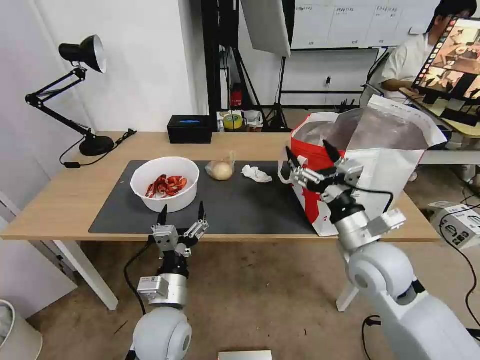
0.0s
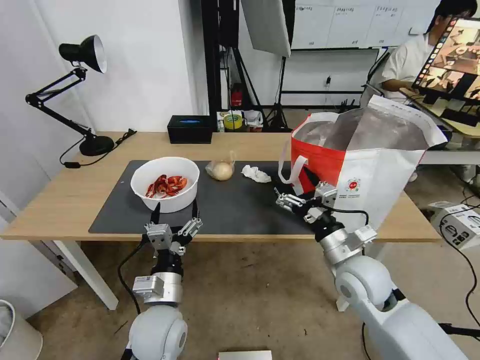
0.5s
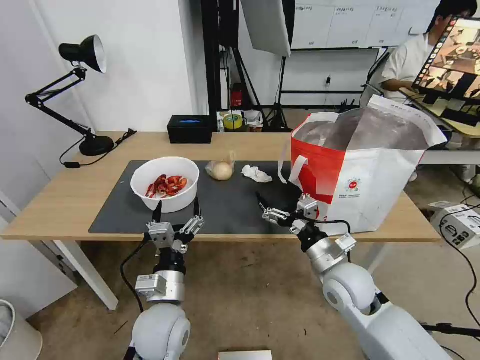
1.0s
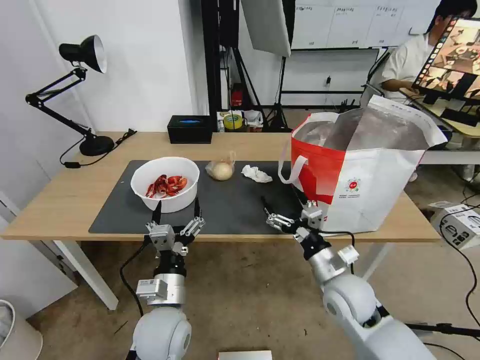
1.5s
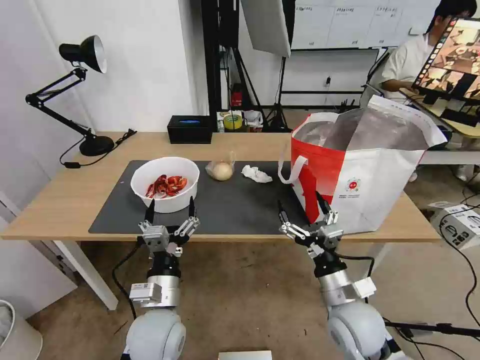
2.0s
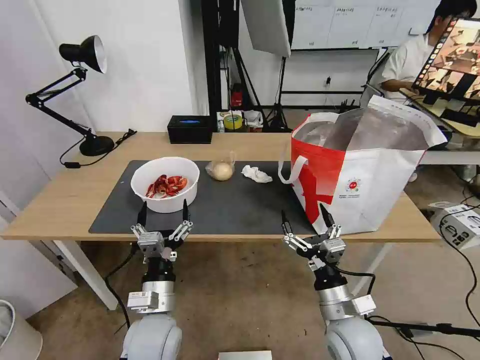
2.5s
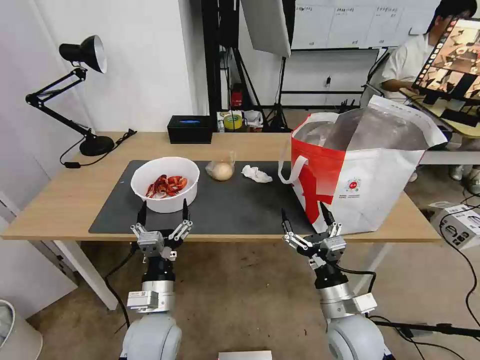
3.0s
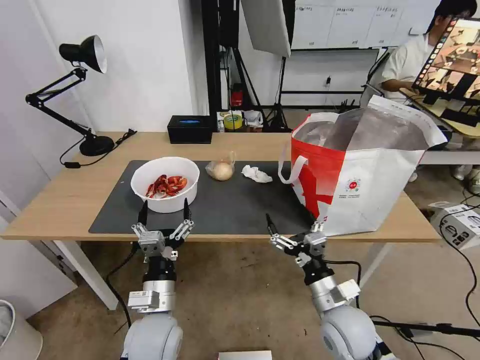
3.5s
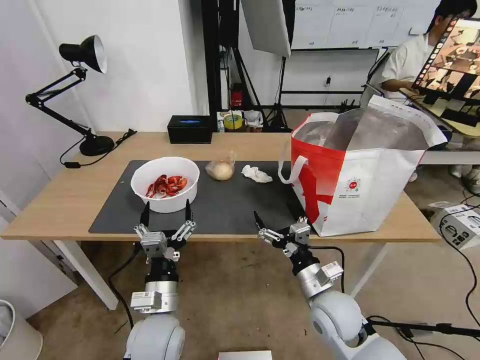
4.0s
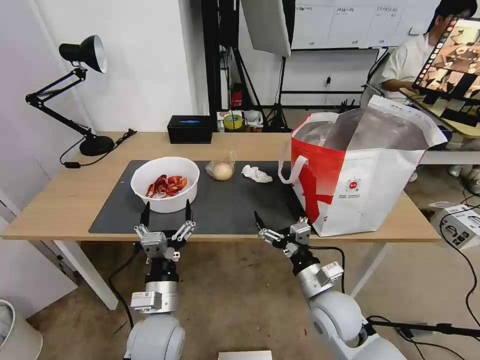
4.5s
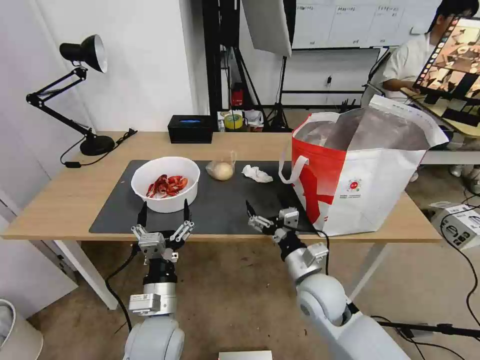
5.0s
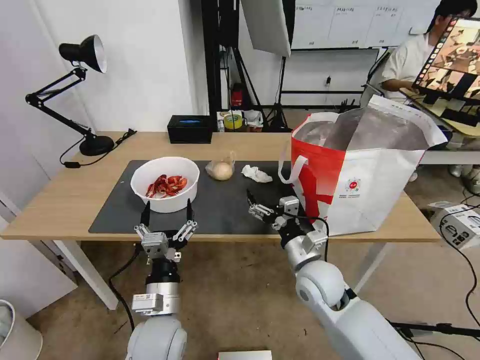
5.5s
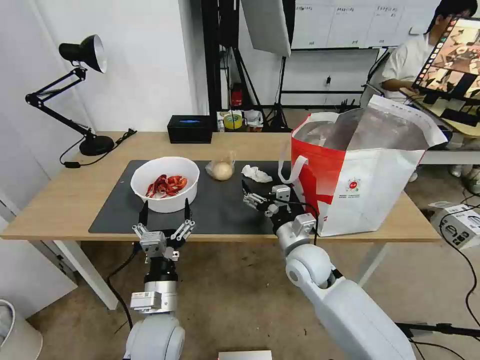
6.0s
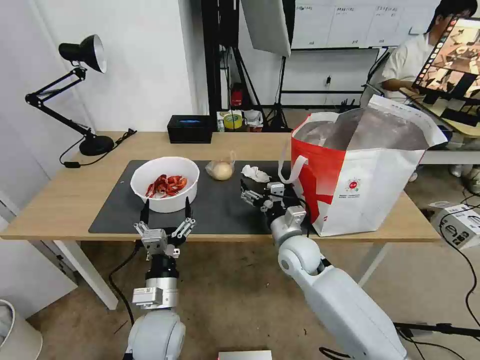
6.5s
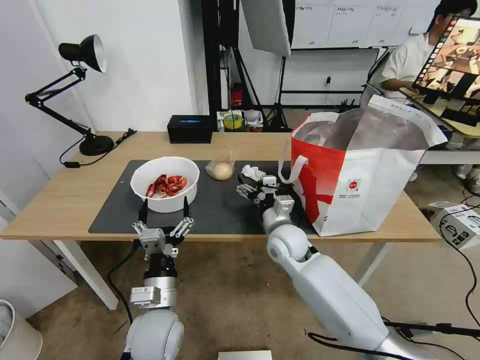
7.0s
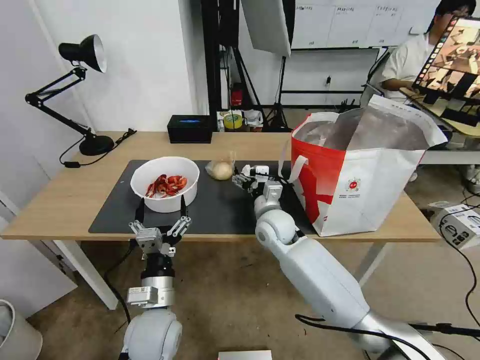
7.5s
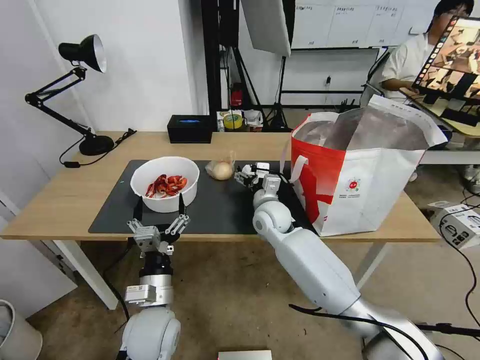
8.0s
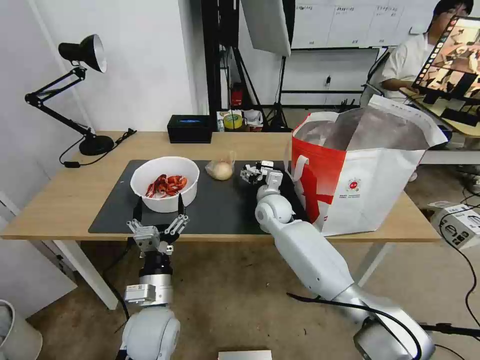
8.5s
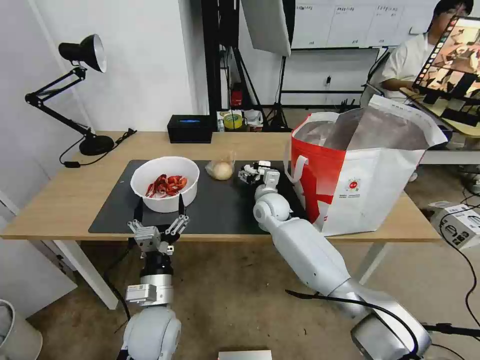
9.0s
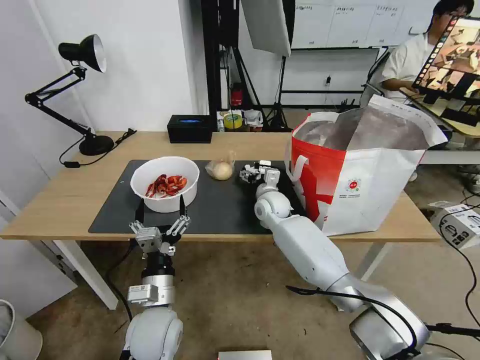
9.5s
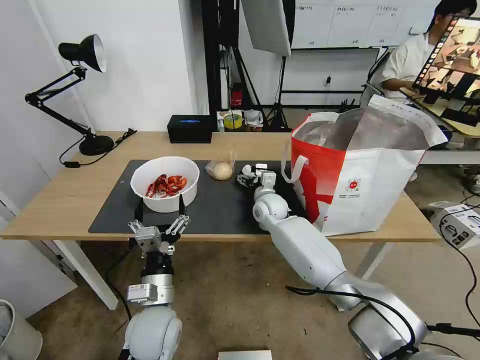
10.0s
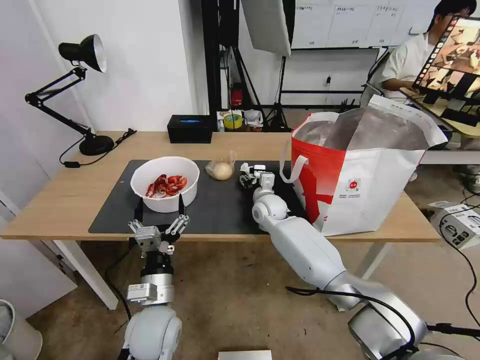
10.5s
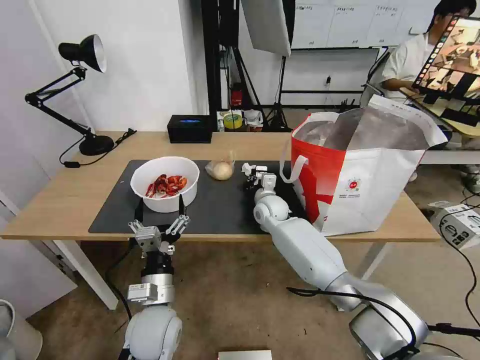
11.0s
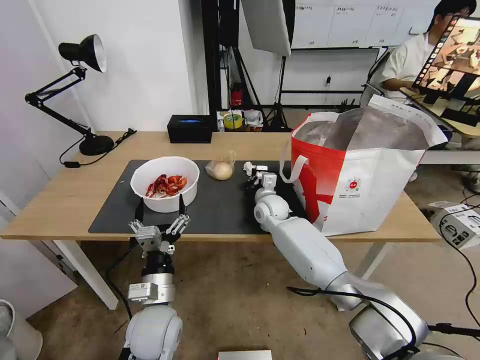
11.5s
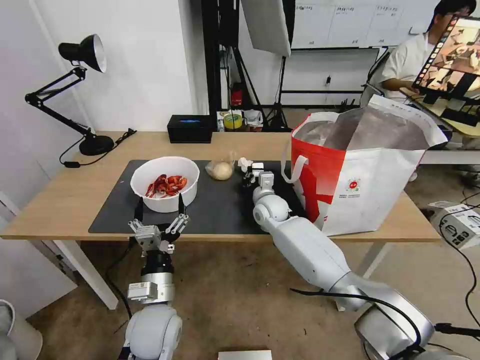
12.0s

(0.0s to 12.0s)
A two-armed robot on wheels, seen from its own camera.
Task of the whole recording: Pick up the trash from the table and place it into the takeout bag.
0.0s - 2.0s: The right gripper heads downward and backward, covering approximately 15 cm.
2.0s - 4.0s: The grippers make only small movements.
4.0s - 6.0s: The right gripper shifts approximately 10 cm forward.
6.0s - 8.0s: The right gripper moves forward and to the left, roughly 15 cm.
8.0s - 10.0s: The right gripper heads forward, covering approximately 5 cm.
10.0s - 12.0s: The right gripper closes.

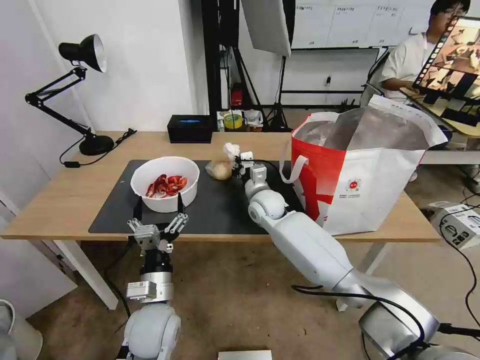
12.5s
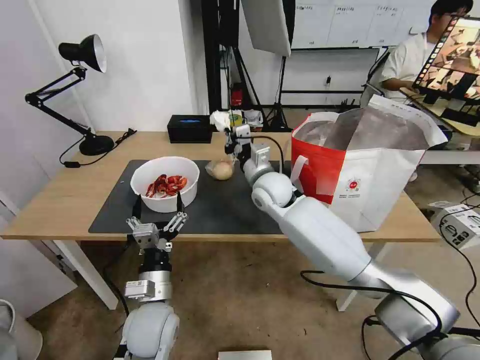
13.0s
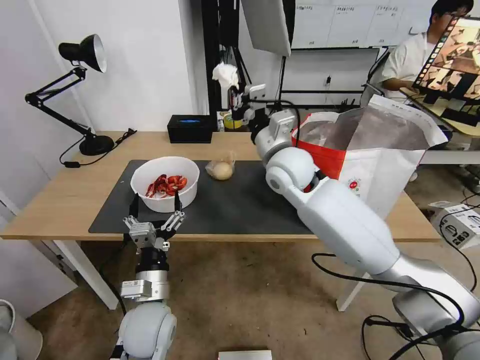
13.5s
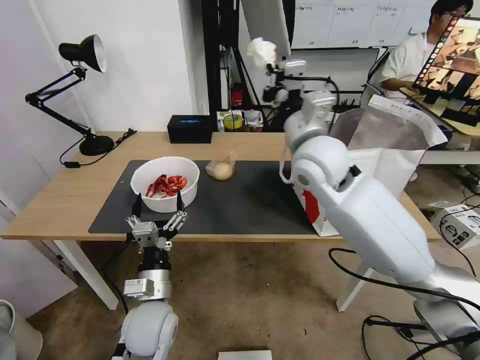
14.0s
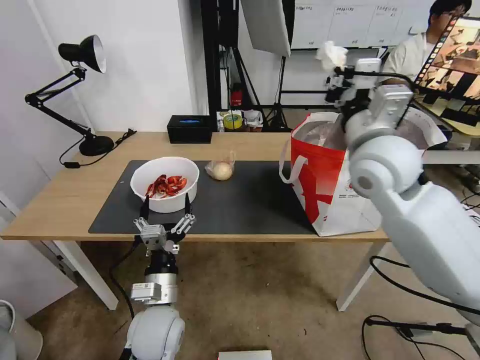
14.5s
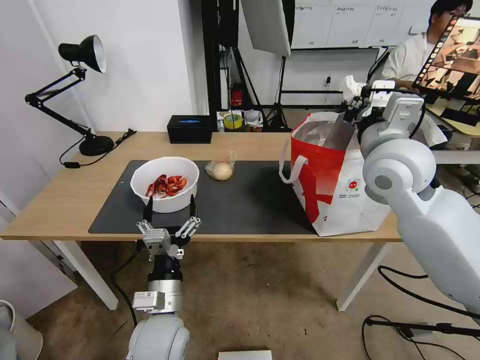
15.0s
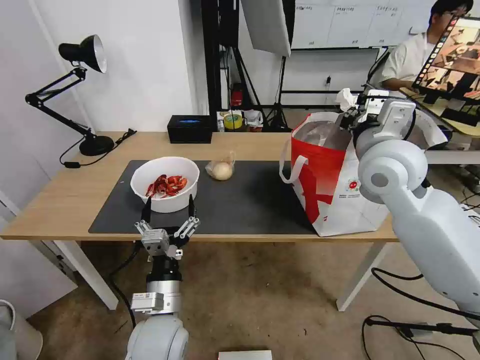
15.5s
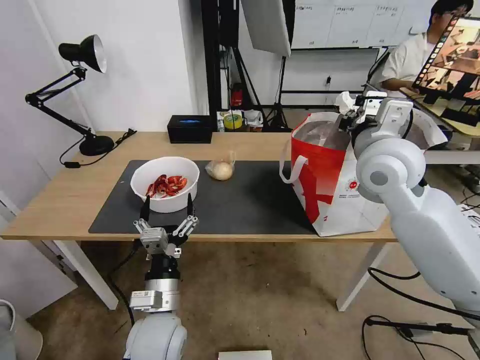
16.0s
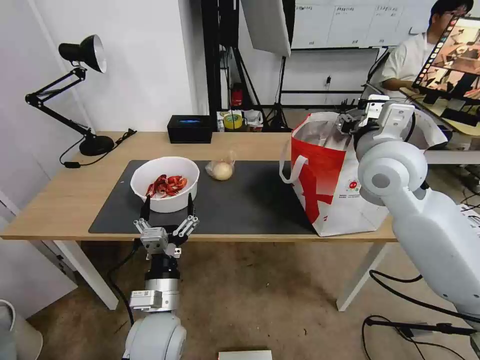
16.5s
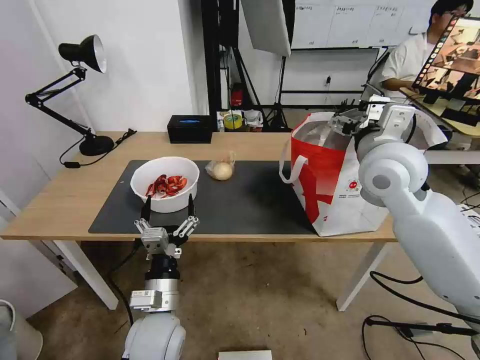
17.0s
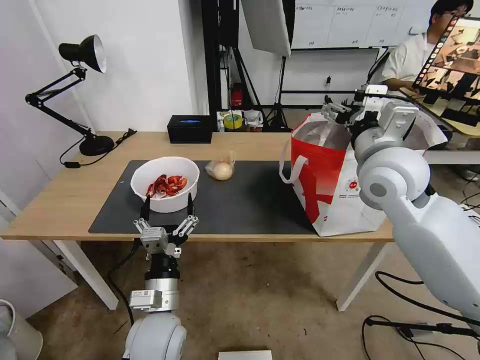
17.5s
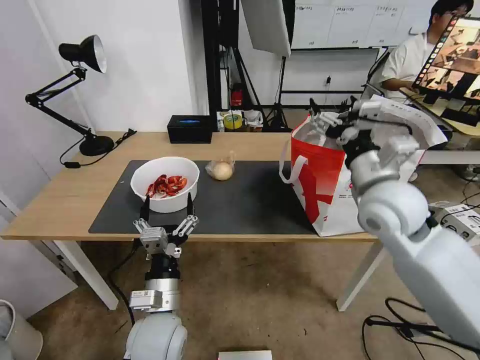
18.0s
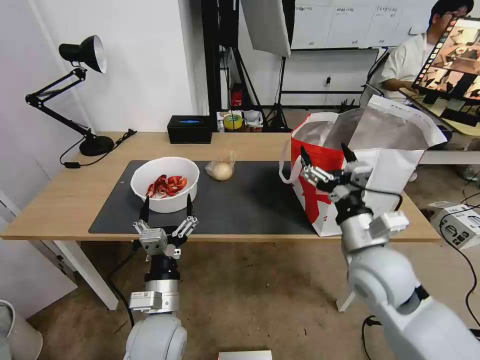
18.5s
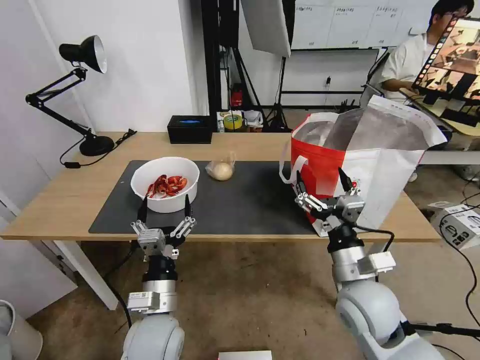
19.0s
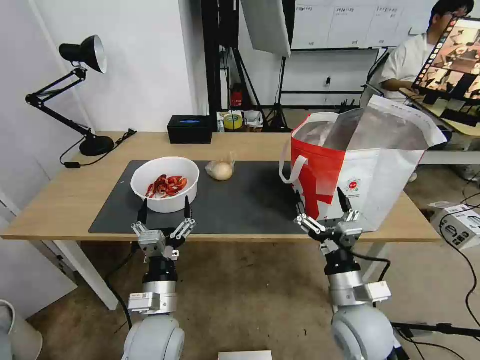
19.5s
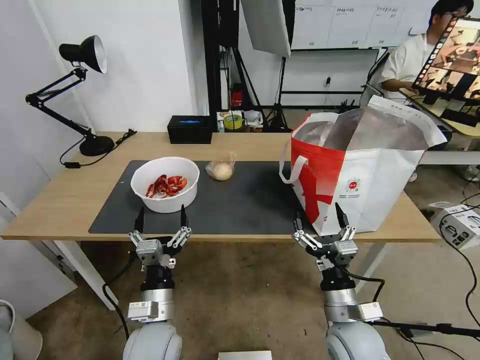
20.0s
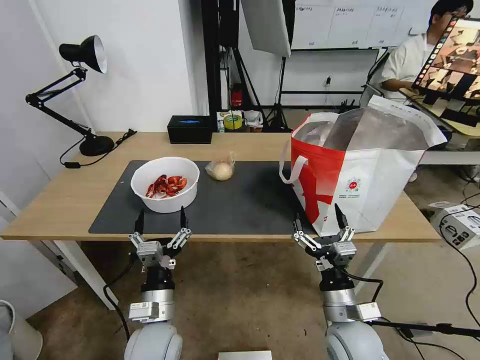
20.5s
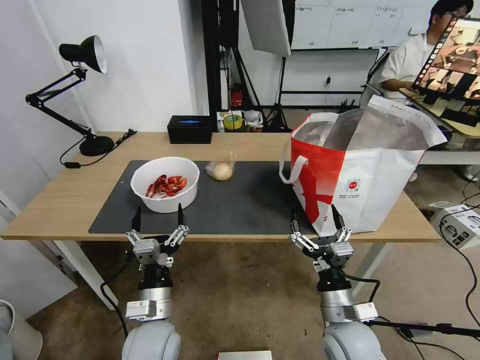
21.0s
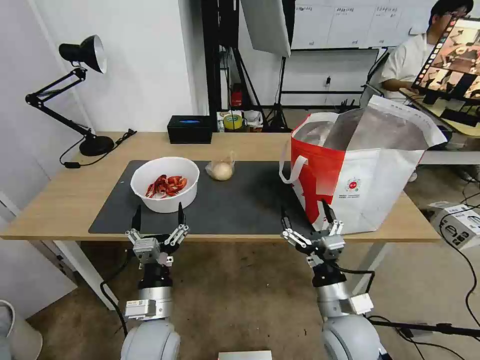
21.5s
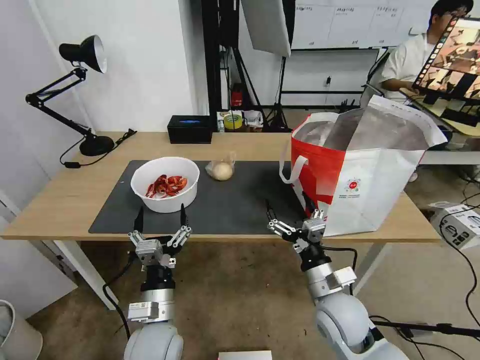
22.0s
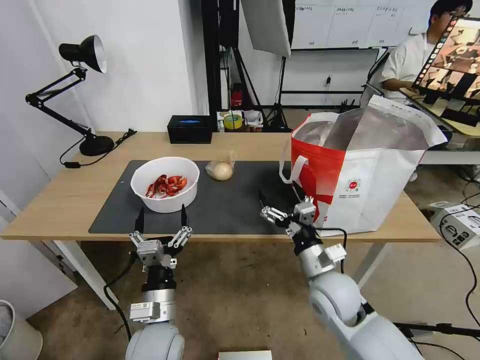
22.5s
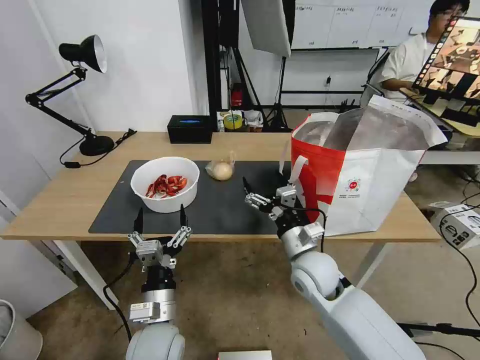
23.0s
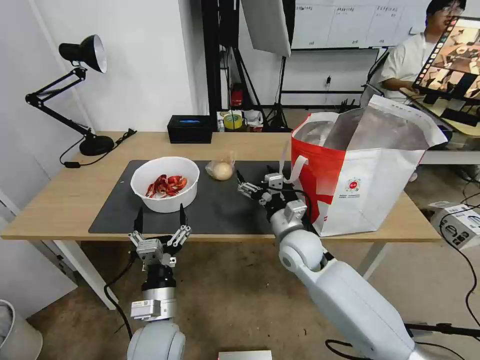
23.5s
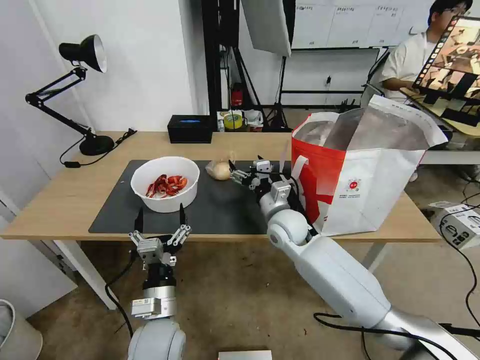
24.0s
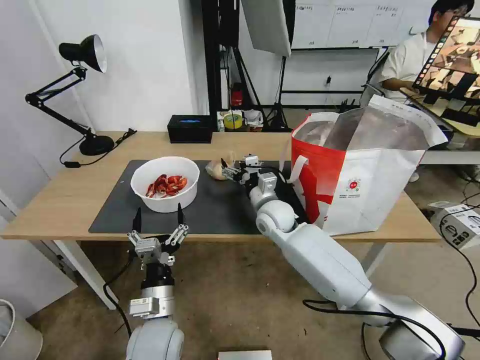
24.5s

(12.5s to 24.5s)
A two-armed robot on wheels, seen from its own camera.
Task of the whole recording: Pick up the trash from the table and place it into the takeout bag.
12.5s - 14.5s: The right gripper goes about 30 cm upward, to the right and backward.
14.5s - 16.5s: The right gripper opens.
16.5s - 18.5s: The right gripper shifts about 20 cm downward and backward, and opens.
18.5s - 20.5s: The right gripper goes some 15 cm downward and backward.
20.5s - 22.5s: The right gripper goes about 10 cm forward.
22.5s - 24.5s: The right gripper travels forward and to the left by about 20 cm.

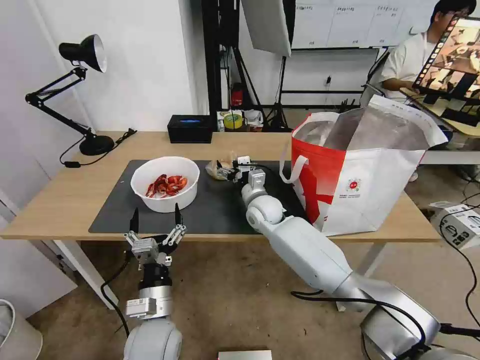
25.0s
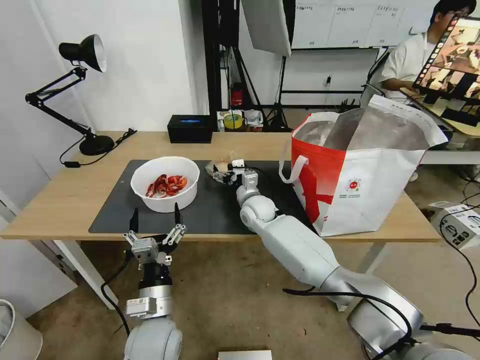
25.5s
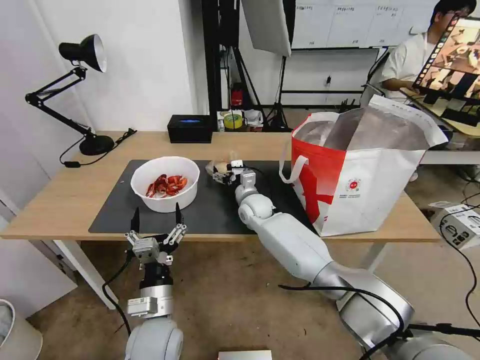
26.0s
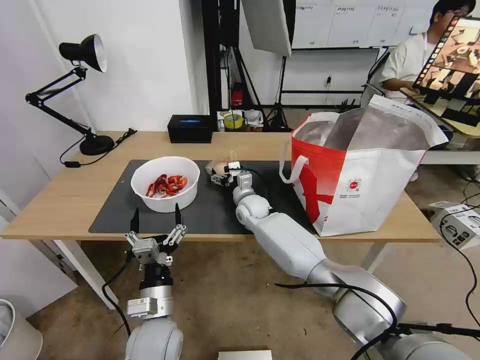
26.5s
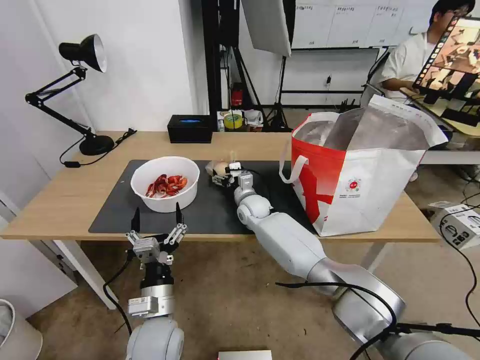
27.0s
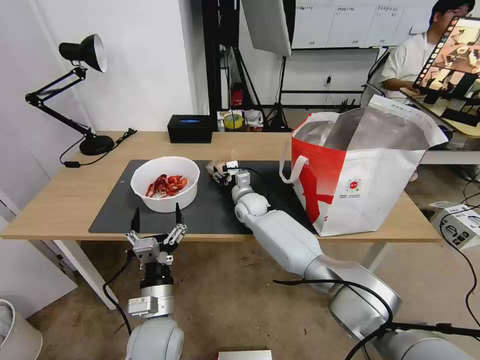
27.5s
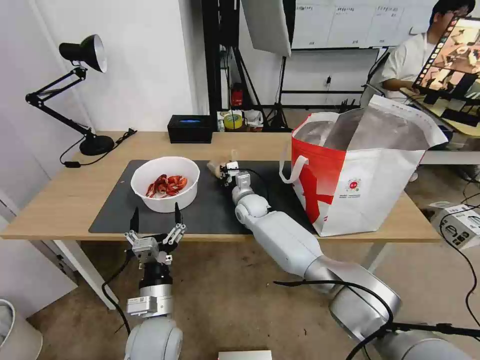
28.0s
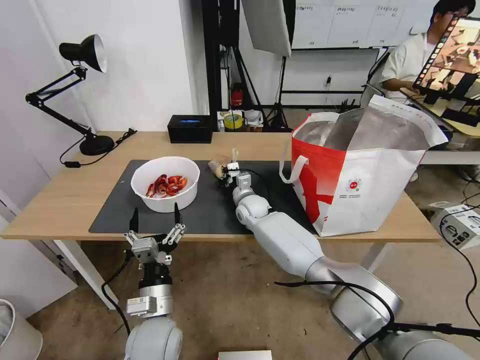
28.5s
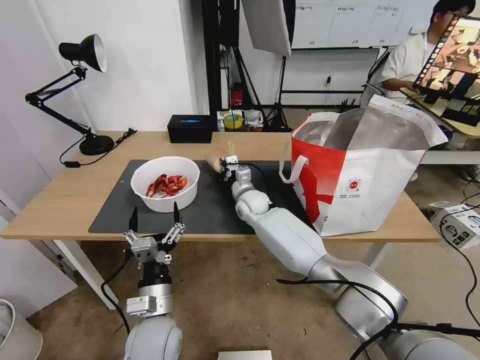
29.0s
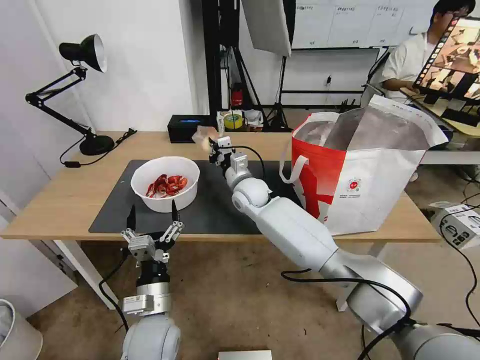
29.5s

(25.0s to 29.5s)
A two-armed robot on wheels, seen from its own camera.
Task of the whole recording: Pick up the trash from the table and place it into the takeout bag.
25.0s - 27.0s: The right gripper moves some 5 cm.
27.0s - 29.5s: The right gripper shifts approximately 10 cm upward, and closes up.
